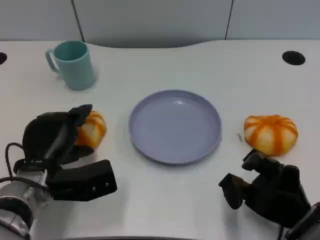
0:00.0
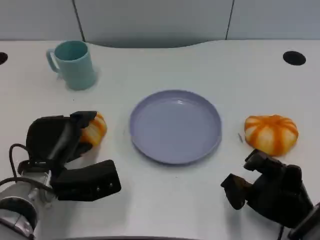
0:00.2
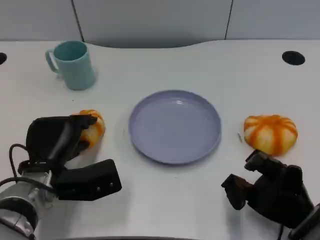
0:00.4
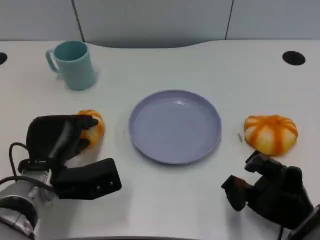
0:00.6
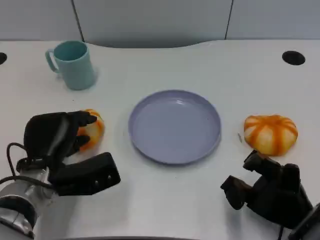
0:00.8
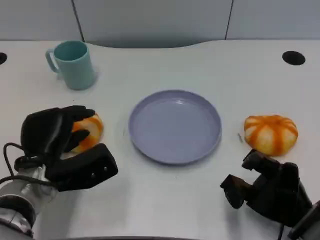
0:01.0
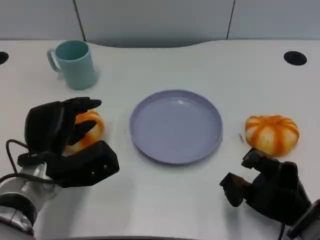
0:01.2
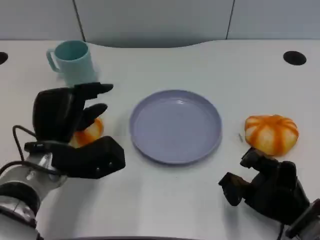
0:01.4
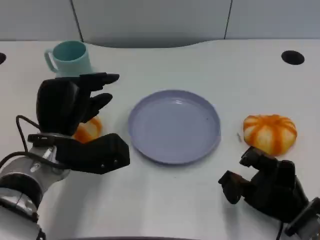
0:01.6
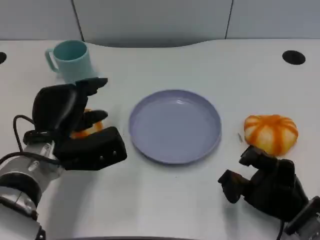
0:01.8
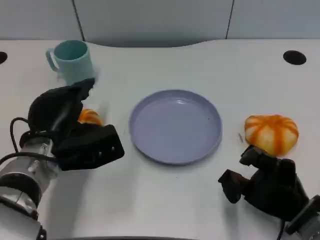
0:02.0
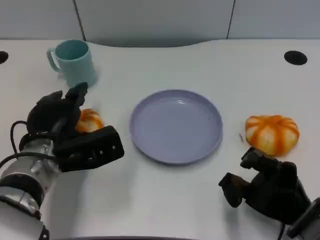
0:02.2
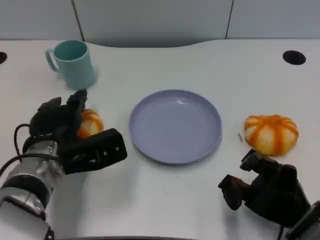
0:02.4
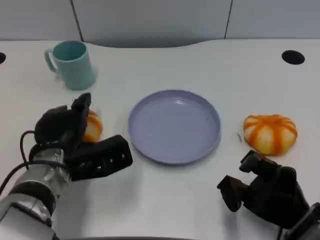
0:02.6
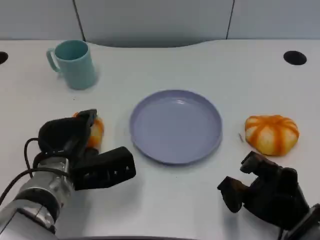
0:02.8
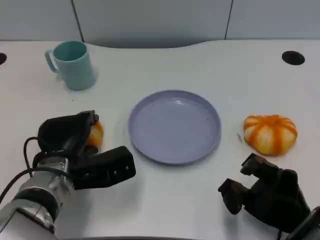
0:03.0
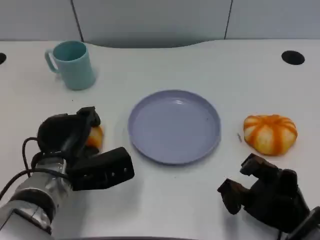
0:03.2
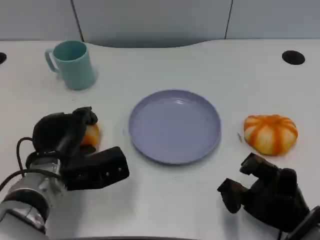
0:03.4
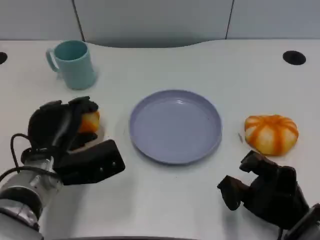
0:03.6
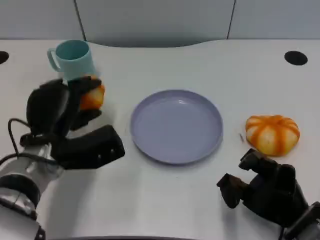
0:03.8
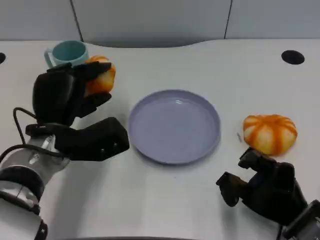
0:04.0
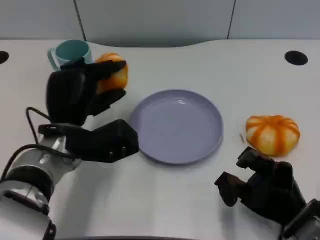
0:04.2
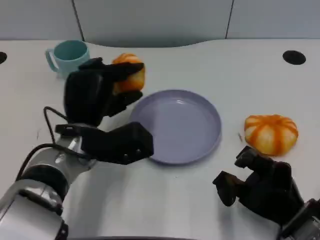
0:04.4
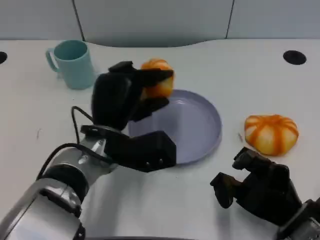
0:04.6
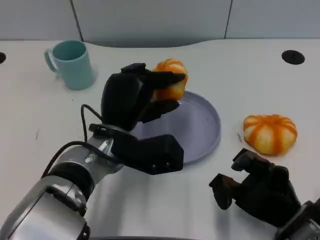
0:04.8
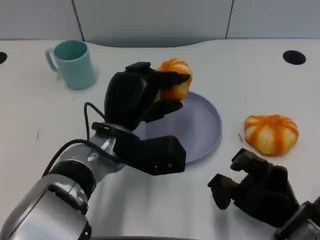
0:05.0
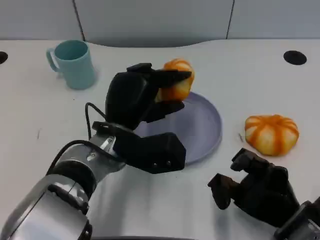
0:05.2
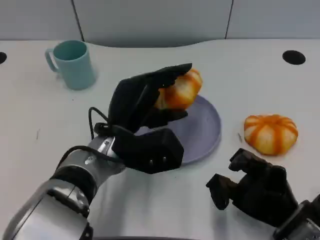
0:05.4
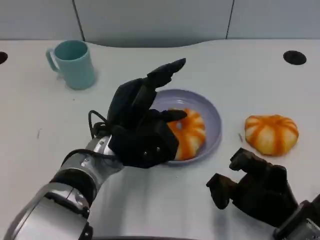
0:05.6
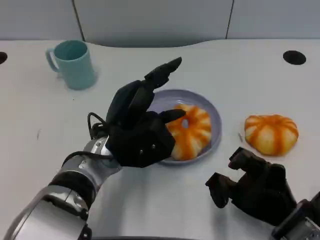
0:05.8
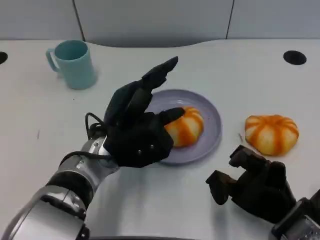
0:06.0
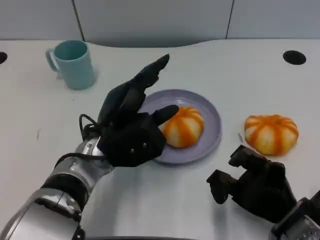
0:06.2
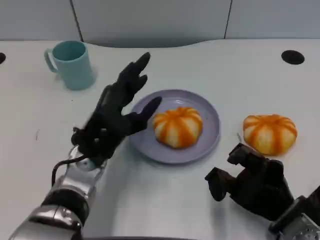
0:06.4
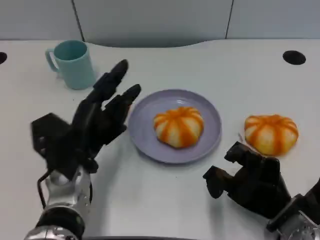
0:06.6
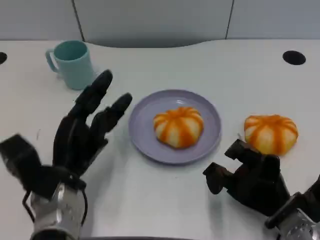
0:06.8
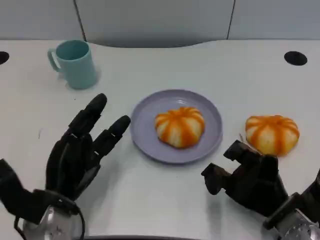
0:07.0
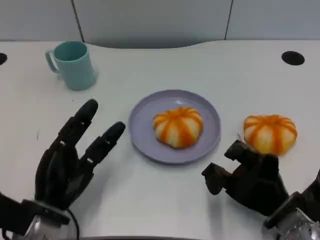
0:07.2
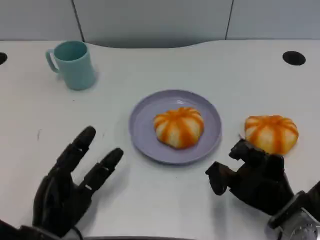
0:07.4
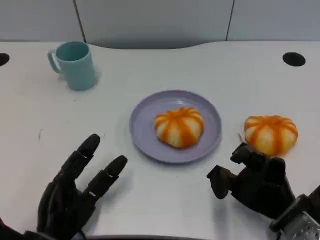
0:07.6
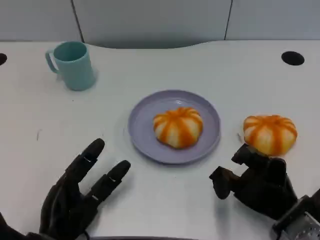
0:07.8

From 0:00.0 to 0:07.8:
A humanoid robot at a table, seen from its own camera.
Task of the whole recording: Grasp the bread from the table and place it into the plate.
From 0:00.0 to 0:01.6: The left hand changes place by some 5 cm.
From 0:03.2 to 0:04.6: The left hand is displaced to the right by about 10 cm.
From 0:06.2 to 0:07.8: The left hand heads backward, downward and to the left, covering approximately 20 cm.

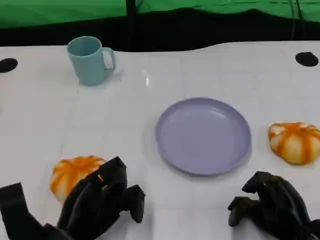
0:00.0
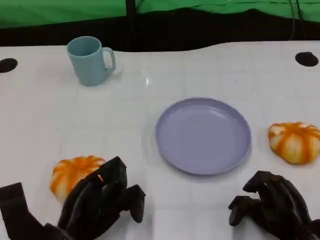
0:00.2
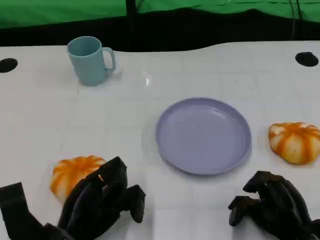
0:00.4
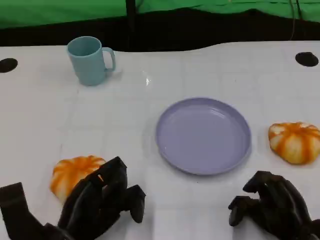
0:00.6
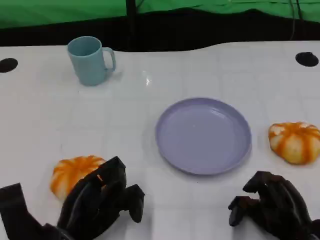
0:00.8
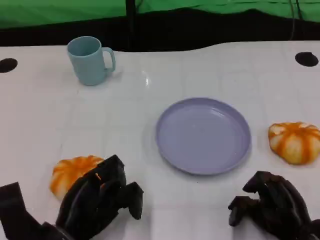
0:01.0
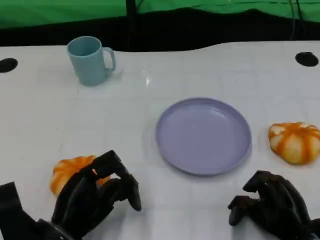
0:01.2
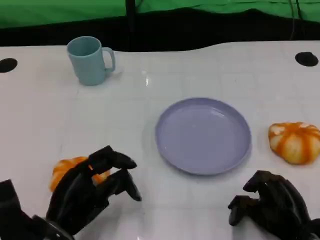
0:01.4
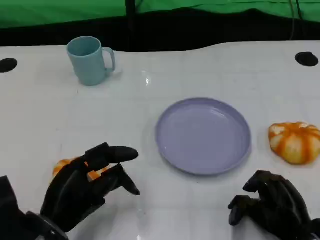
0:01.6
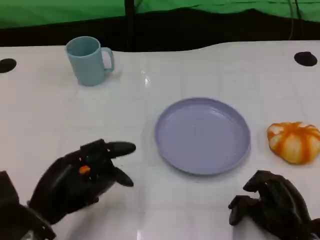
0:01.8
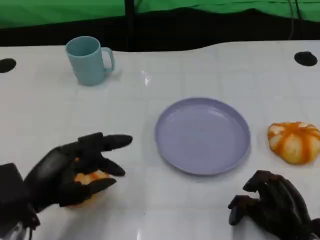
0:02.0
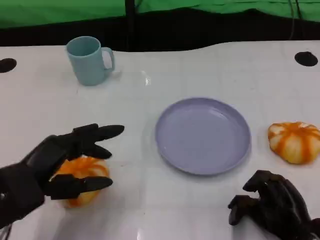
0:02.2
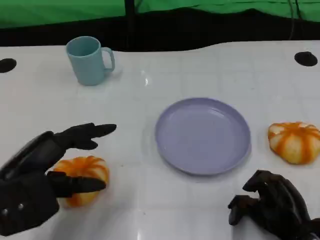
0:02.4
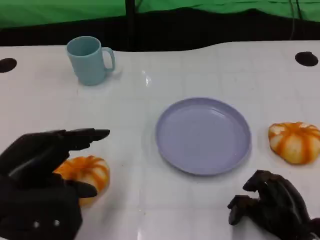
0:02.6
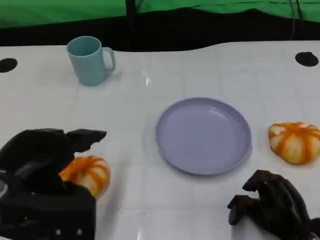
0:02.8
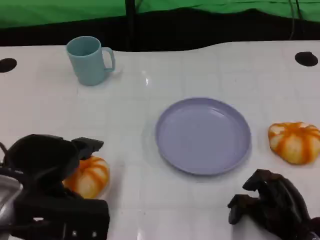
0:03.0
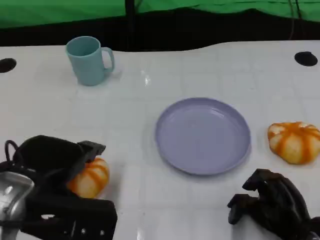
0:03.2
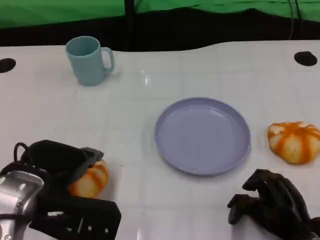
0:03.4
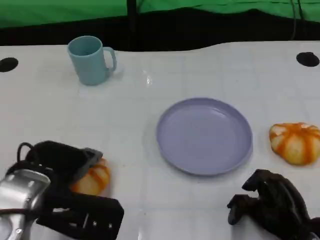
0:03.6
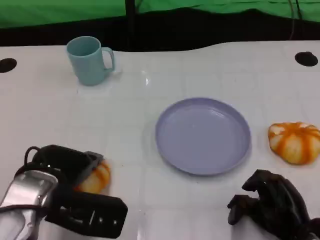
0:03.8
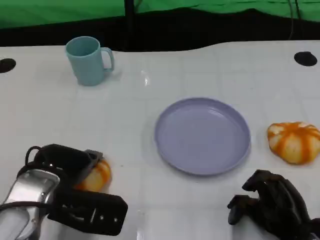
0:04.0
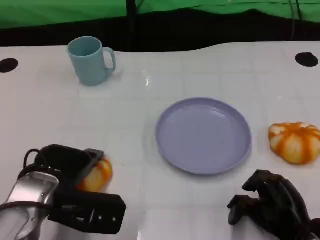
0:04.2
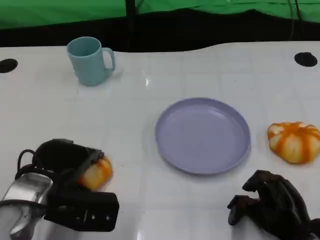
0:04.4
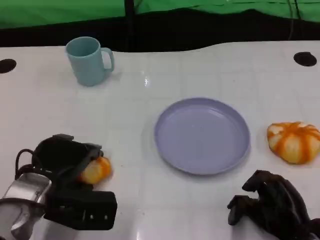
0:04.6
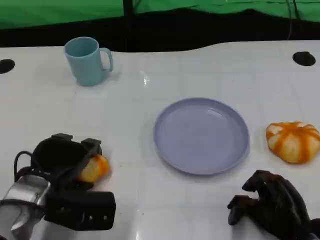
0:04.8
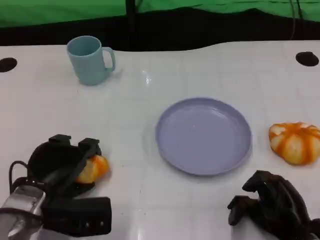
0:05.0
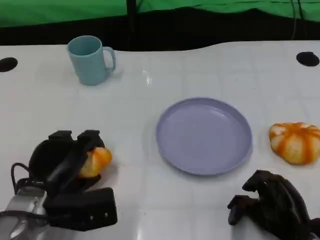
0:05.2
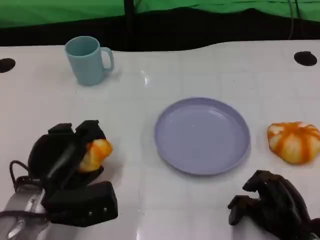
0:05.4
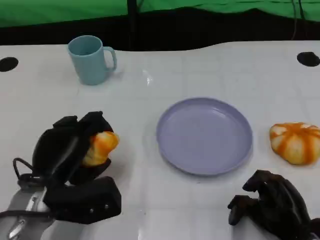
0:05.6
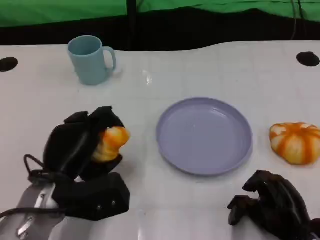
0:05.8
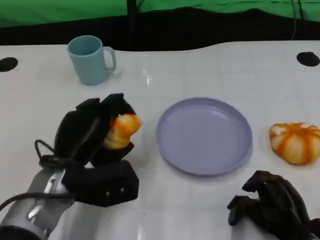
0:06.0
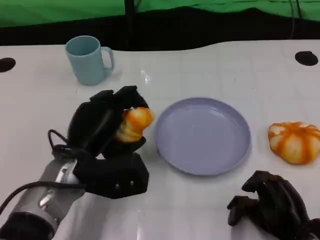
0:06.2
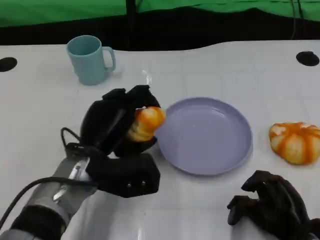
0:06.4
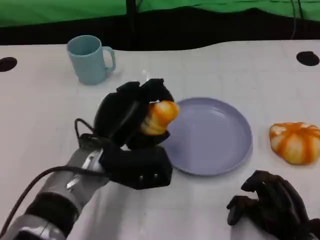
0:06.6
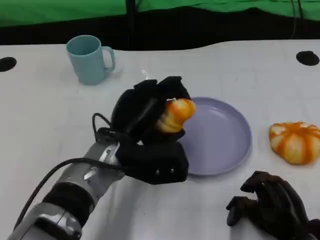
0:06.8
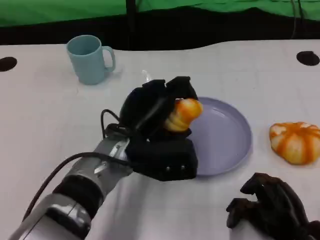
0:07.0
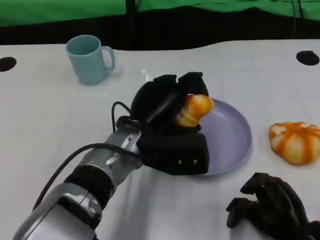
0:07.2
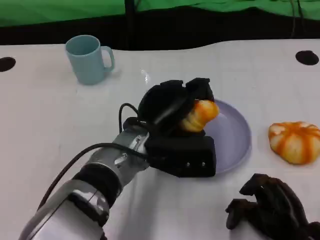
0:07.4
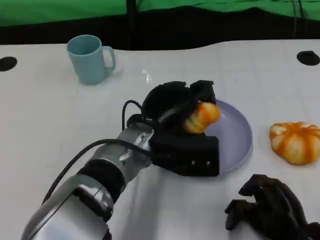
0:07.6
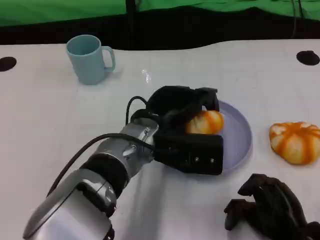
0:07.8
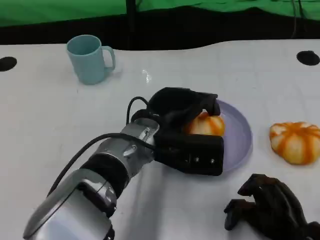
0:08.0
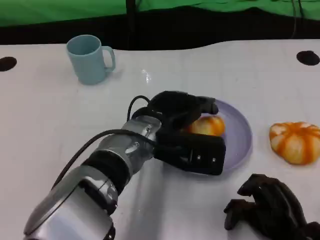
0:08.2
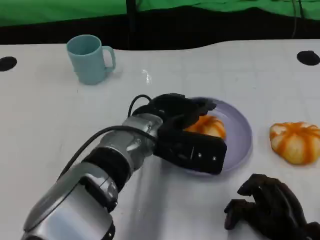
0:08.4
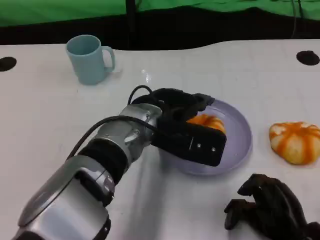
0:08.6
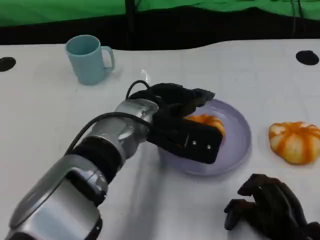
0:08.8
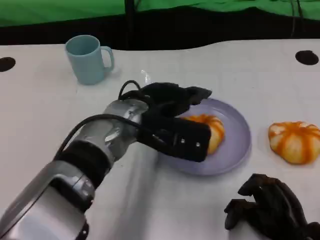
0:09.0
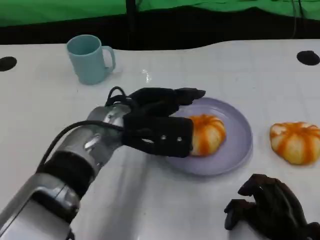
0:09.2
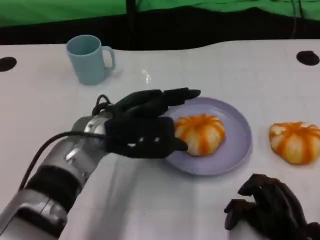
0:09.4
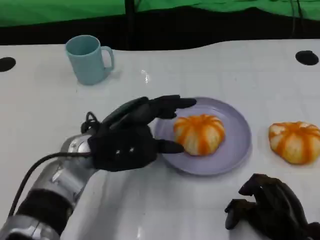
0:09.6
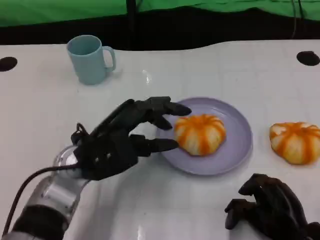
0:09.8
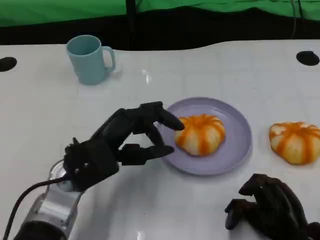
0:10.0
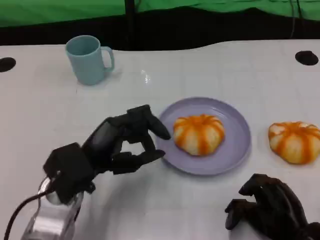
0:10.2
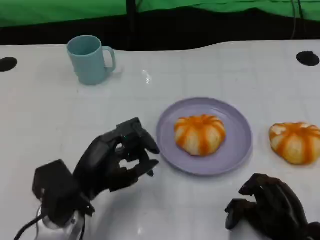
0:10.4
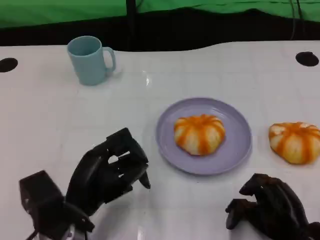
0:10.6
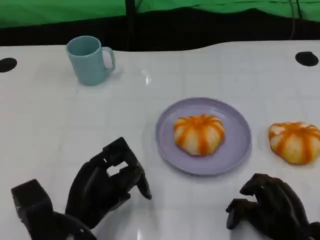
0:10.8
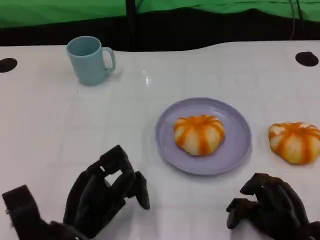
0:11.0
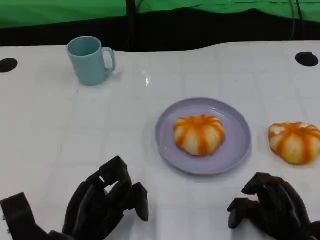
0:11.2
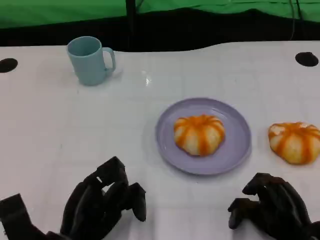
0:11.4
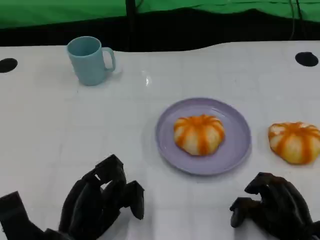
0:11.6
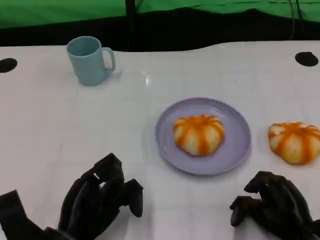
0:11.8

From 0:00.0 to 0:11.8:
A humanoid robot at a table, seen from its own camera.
Task of the whole recording: Grasp the bread from the table and place it into the plate.
From 0:00.0 to 0:01.4: The hands stay close to where they were, moving slightly.
From 0:01.4 to 0:03.0: The left hand goes approximately 10 cm upward.
From 0:03.0 to 0:04.4: The left hand goes some 10 cm downward and forward.
From 0:06.0 to 0:07.4: The left hand heads to the right, covering some 10 cm.
From 0:08.8 to 0:10.4: The left hand travels to the left, backward and downward by some 15 cm.
From 0:10.4 to 0:11.8: The left hand changes place by approximately 5 cm.

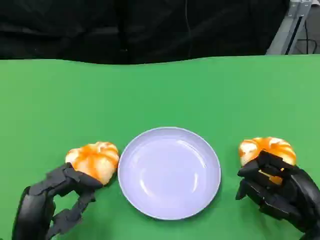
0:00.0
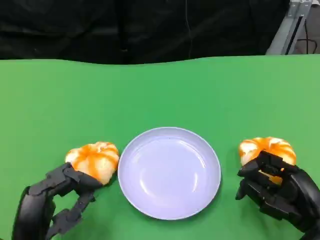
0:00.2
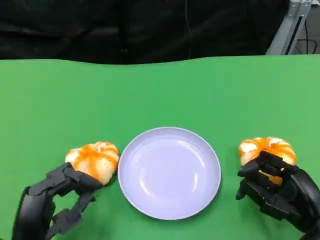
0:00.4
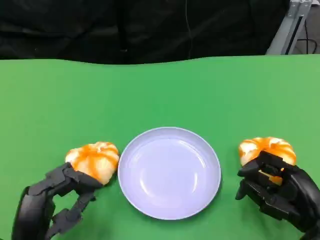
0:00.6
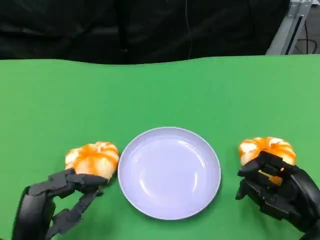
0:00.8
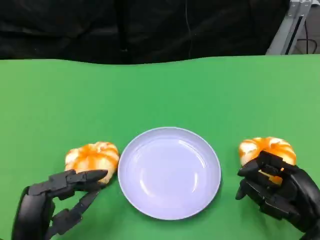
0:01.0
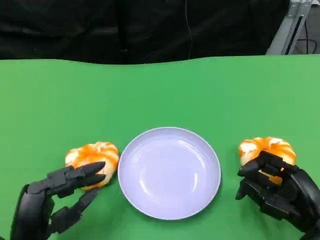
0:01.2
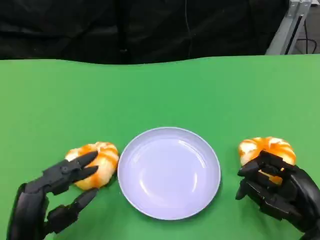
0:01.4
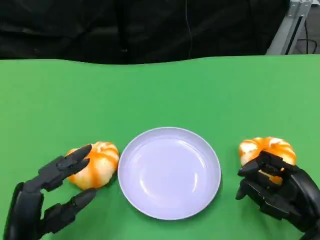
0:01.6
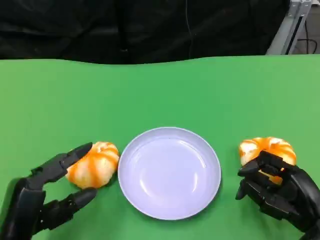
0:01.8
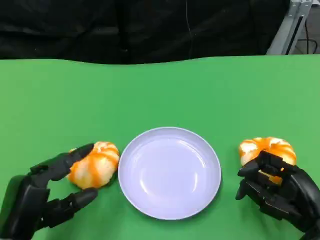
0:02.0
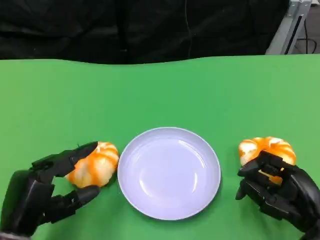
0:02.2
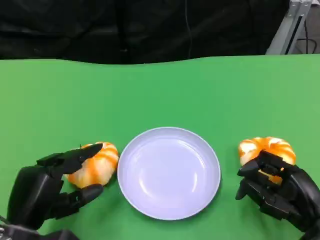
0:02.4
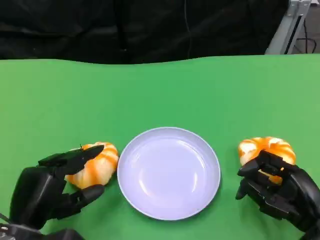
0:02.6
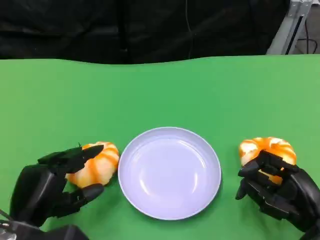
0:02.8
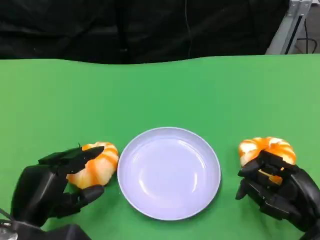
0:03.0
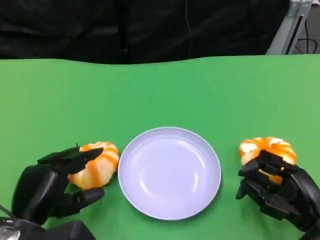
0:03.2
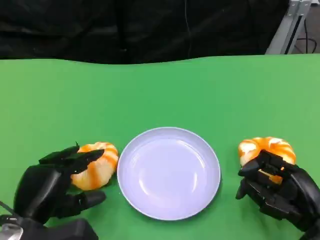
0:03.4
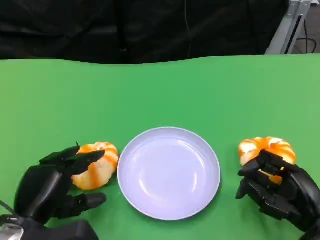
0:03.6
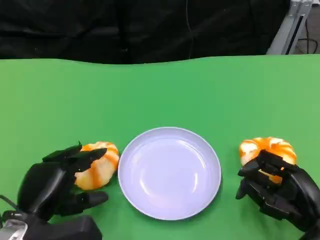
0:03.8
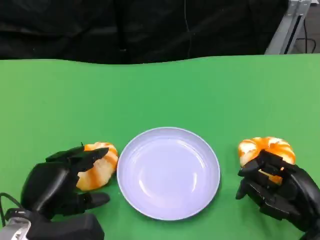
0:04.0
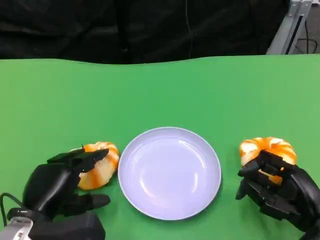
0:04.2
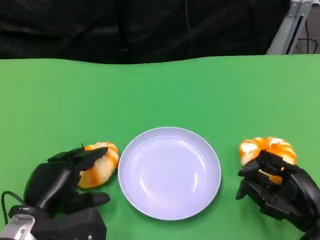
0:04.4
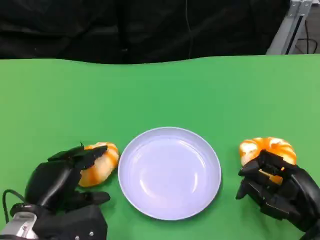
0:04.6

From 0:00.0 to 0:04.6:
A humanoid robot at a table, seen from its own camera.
Task of the whole recording: Grasp the bread from the table and place it into the plate.
From 0:00.0 to 0:01.6: There are only small adjustments of the hands.
From 0:03.0 to 0:04.6: The hands move only a little.
